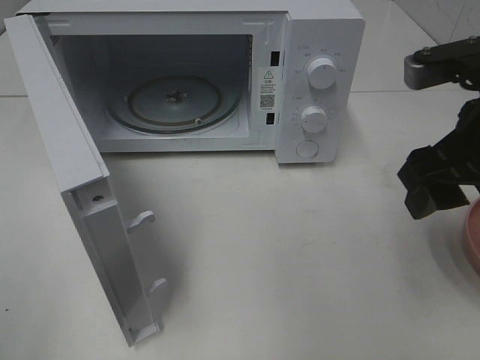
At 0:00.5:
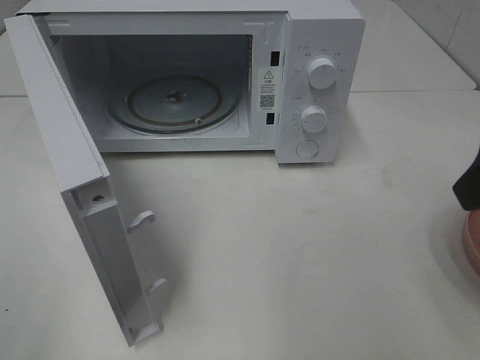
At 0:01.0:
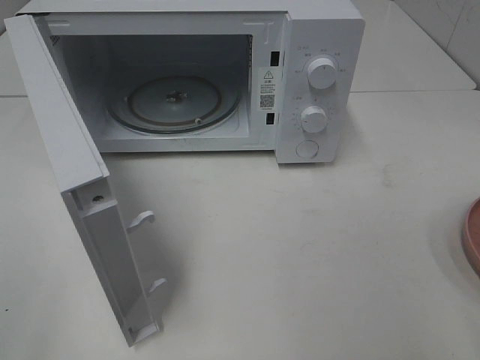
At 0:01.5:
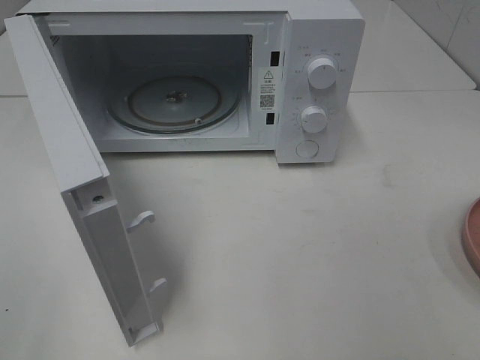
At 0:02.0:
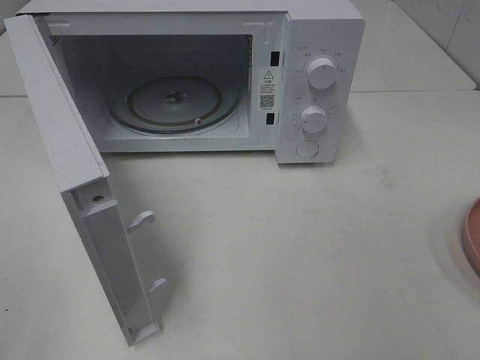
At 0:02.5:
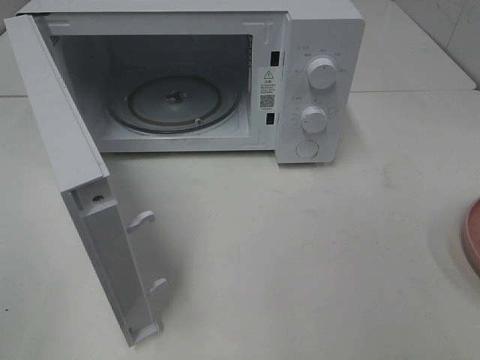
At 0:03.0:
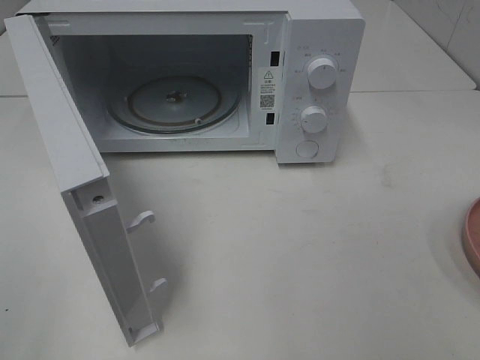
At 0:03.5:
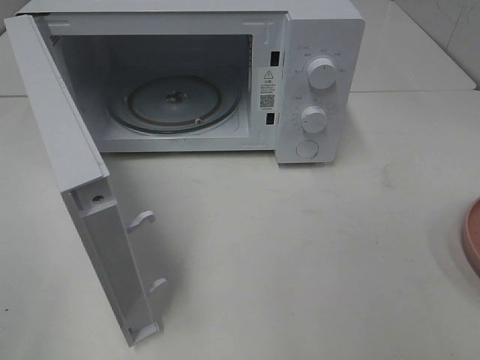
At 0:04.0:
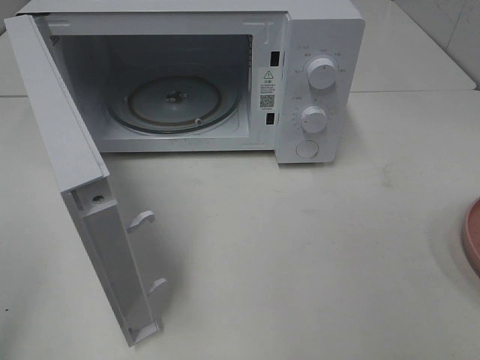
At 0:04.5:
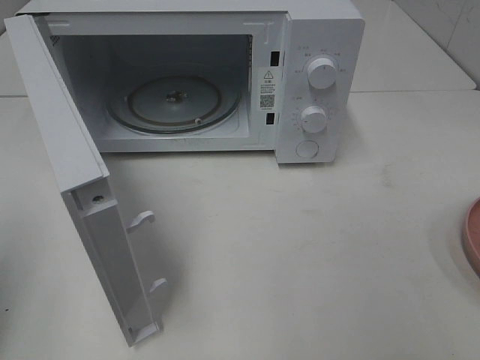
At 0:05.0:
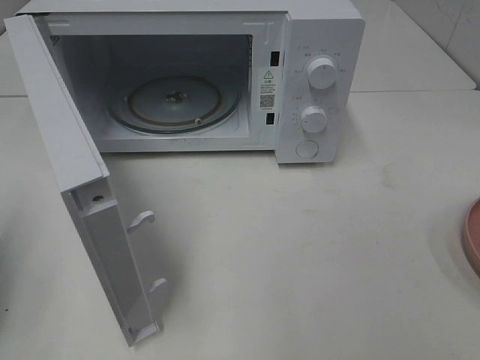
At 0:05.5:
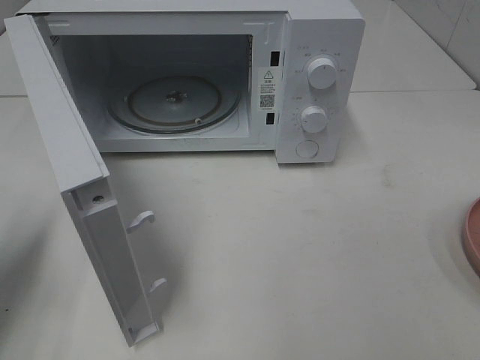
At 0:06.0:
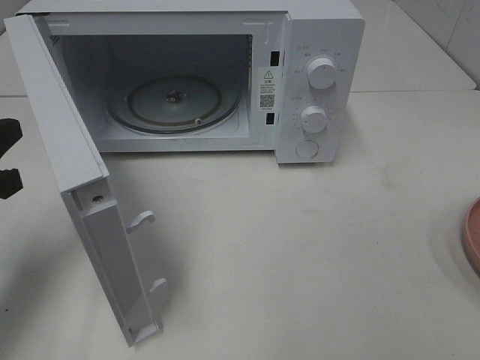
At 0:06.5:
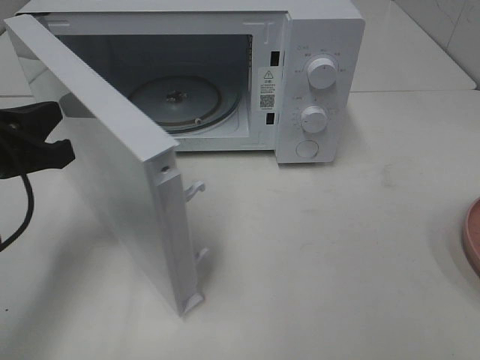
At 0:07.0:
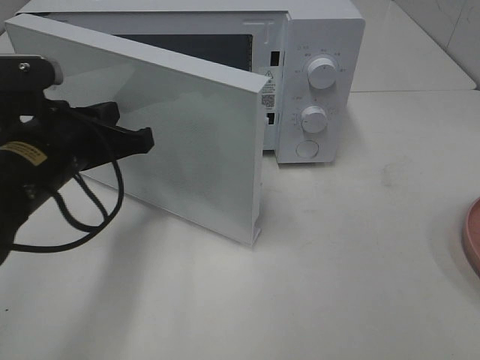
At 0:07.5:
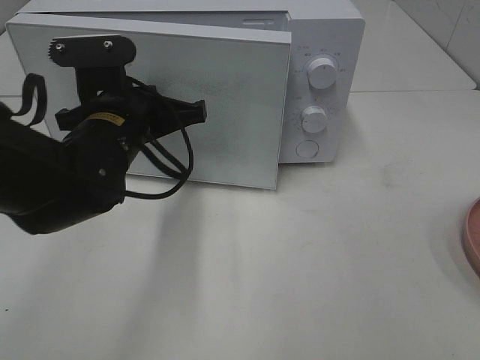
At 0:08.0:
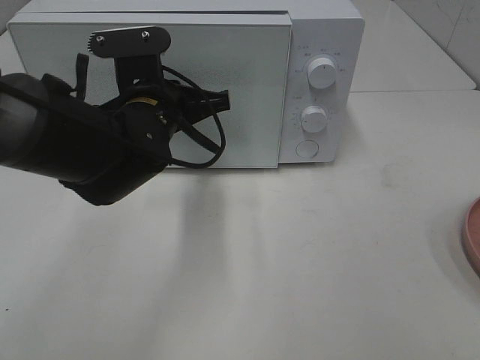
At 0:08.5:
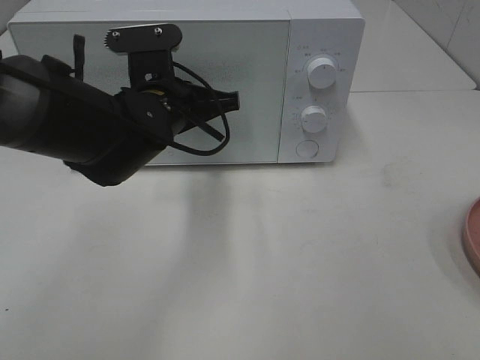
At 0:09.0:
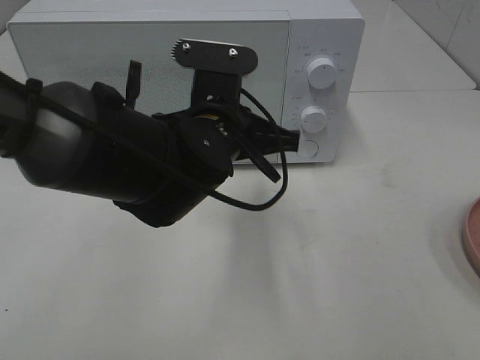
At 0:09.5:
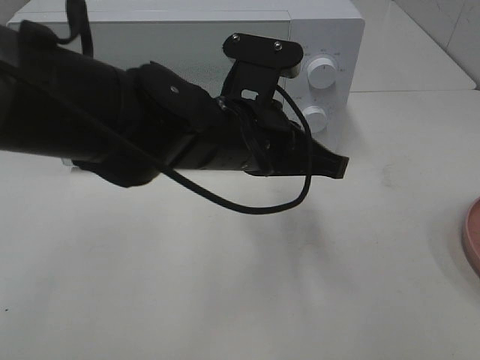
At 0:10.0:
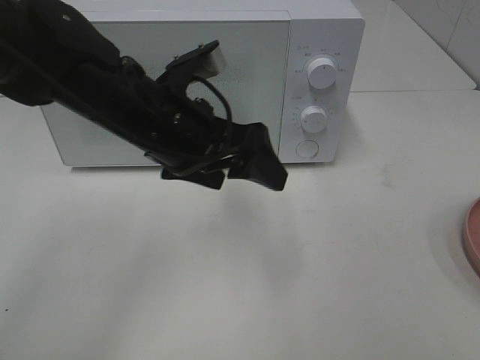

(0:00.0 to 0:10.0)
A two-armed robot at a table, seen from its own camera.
Task of the whole recording: Heat the burger.
Step, 0:00.0 - 0:09.0: Left hand: close the microwave door.
0:00.0 - 0:02.0: The right gripper travels backward and to the right by some 25 cm.
0:04.0 - 0:06.0: The left gripper heads forward and downward, covering roughly 20 cm, and closes.
0:06.0 - 0:08.0: The left gripper is displaced to the right and forward by approximately 25 cm.
0:08.0 - 0:10.0: The left gripper travels to the right and back again, some 10 cm each way, and opens.

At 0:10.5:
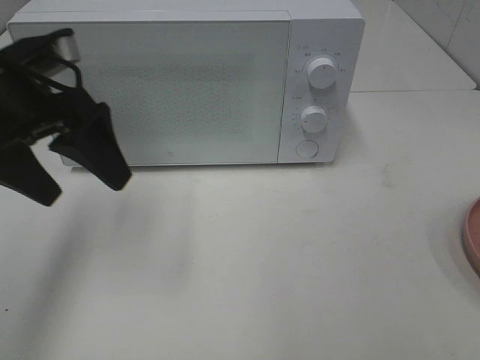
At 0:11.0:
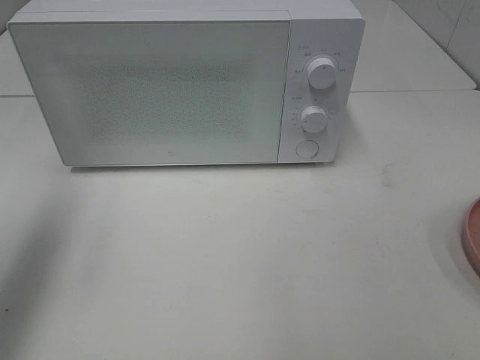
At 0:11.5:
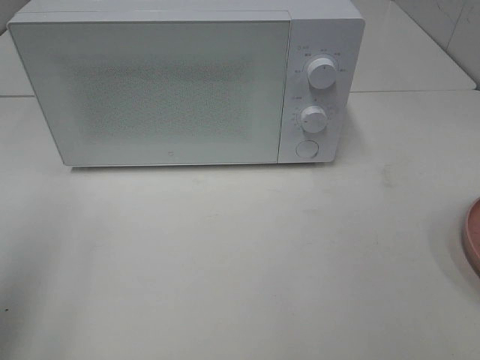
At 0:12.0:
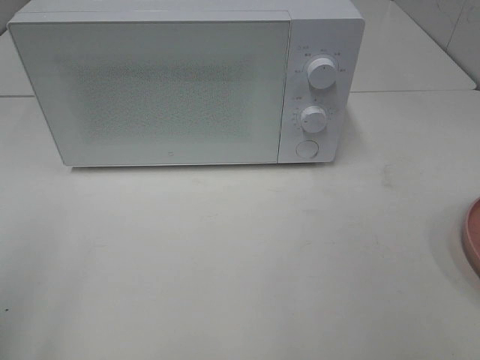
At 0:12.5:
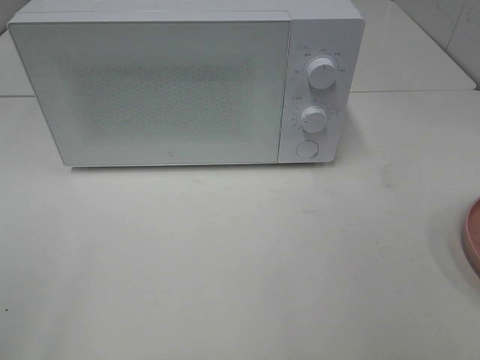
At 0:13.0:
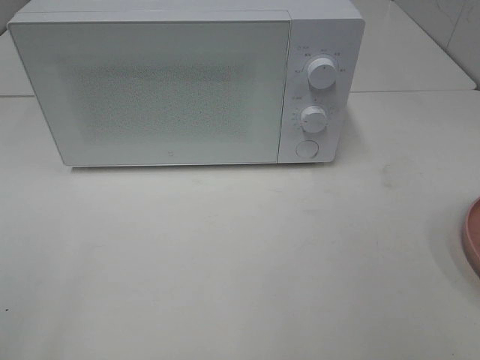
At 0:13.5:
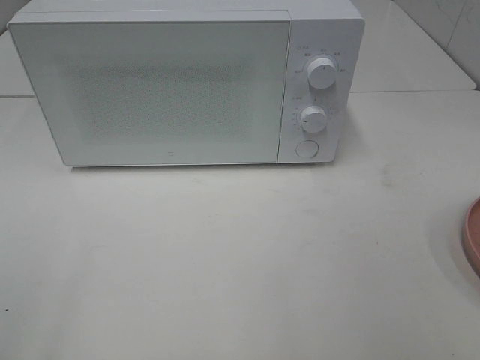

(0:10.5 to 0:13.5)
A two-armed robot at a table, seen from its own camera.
Task of the whole recording: Heat the burger.
0:10.5 - 0:12.0: The left gripper heads backward and to the left, covering approximately 25 cm.

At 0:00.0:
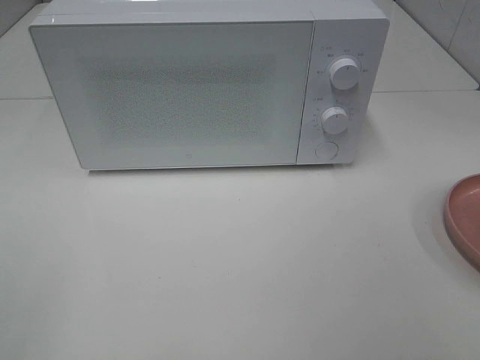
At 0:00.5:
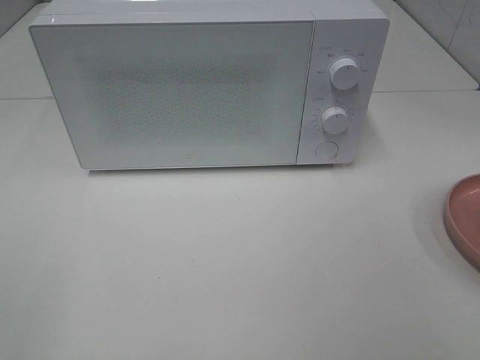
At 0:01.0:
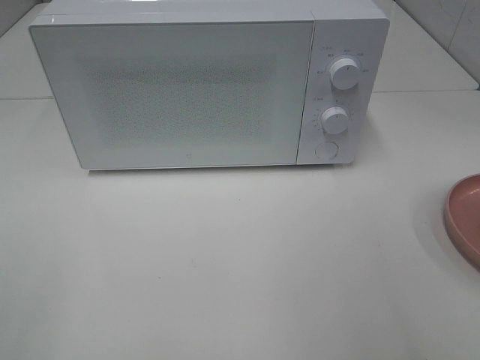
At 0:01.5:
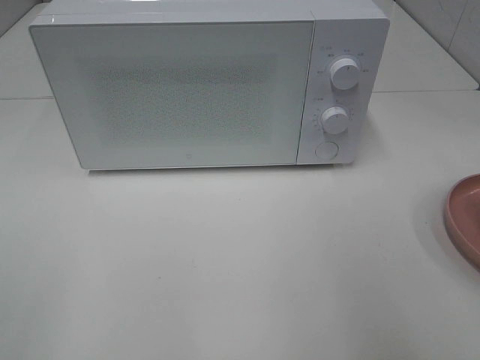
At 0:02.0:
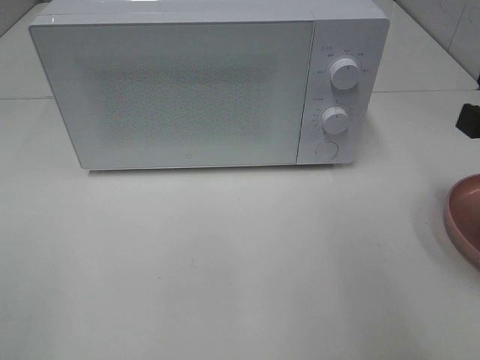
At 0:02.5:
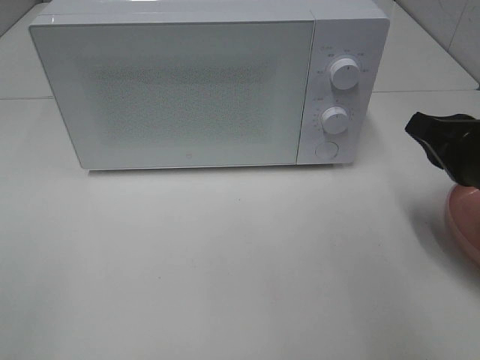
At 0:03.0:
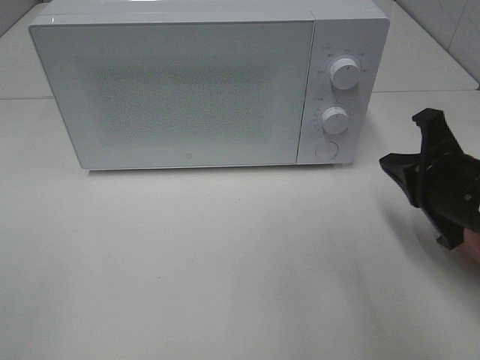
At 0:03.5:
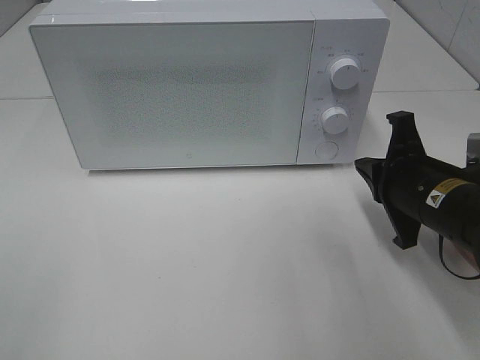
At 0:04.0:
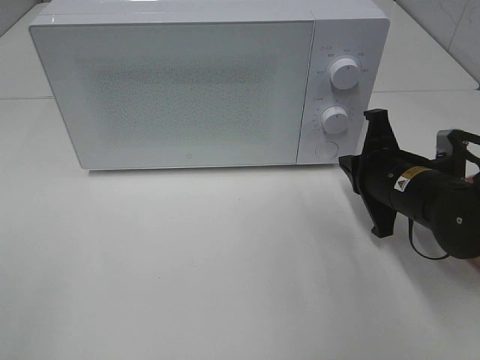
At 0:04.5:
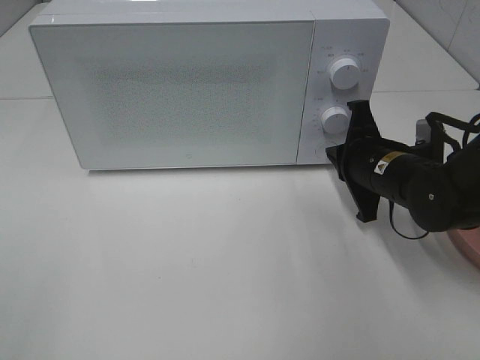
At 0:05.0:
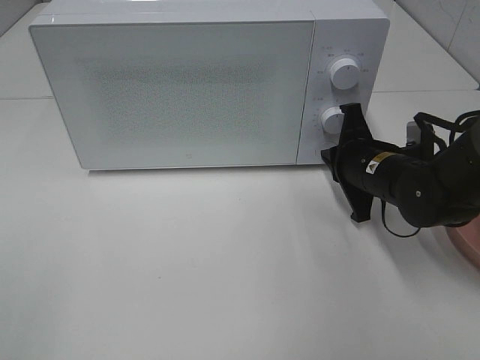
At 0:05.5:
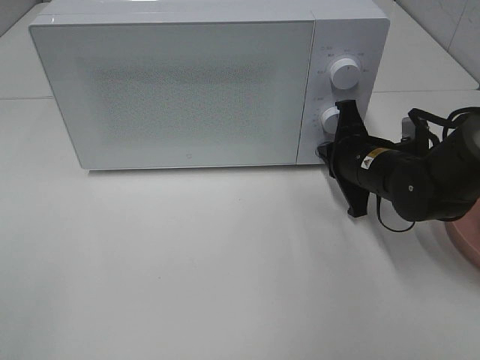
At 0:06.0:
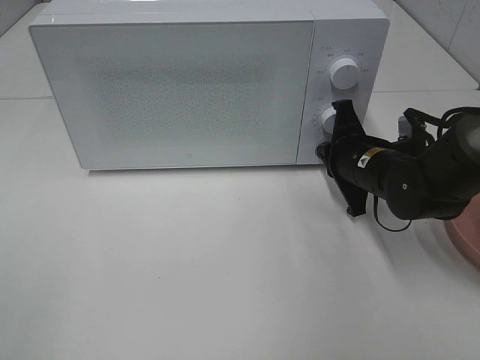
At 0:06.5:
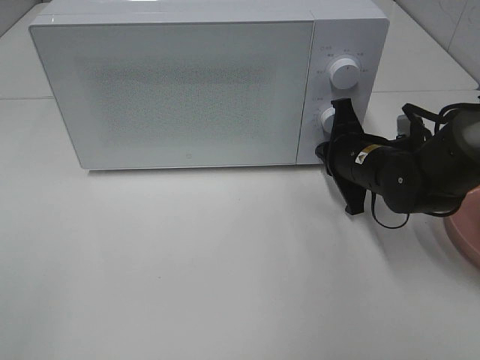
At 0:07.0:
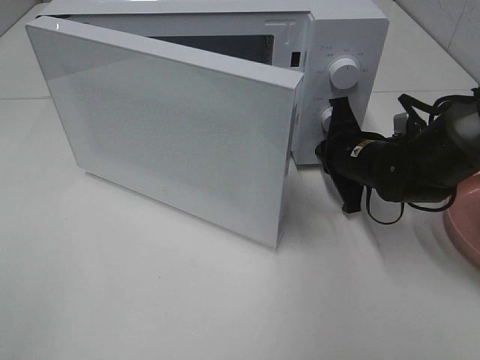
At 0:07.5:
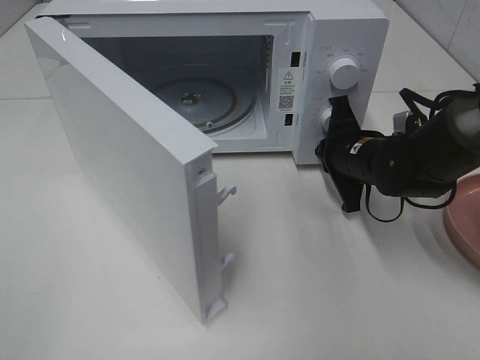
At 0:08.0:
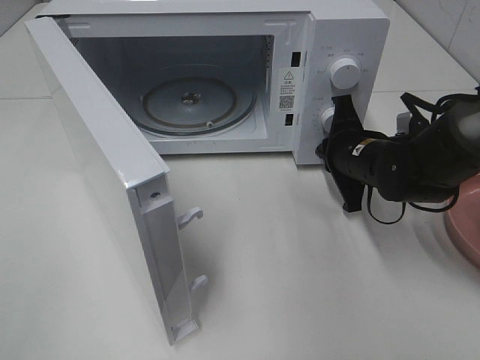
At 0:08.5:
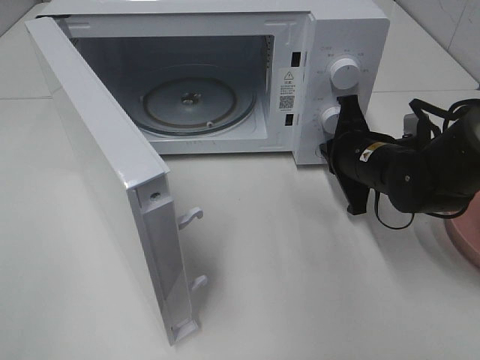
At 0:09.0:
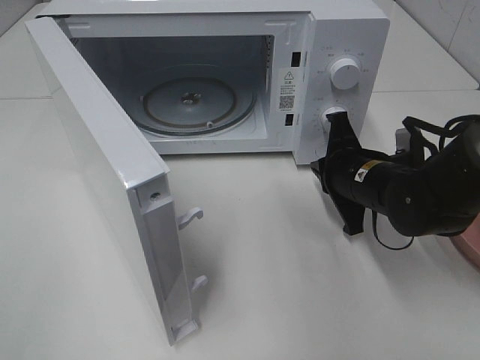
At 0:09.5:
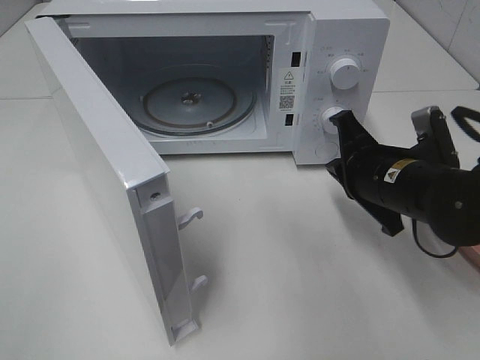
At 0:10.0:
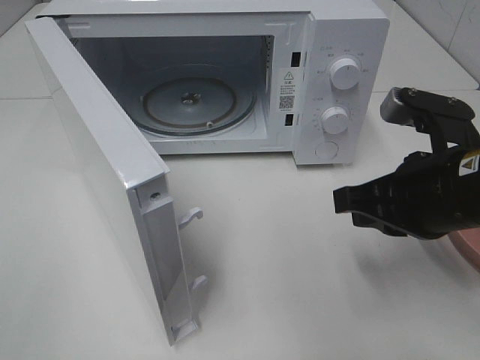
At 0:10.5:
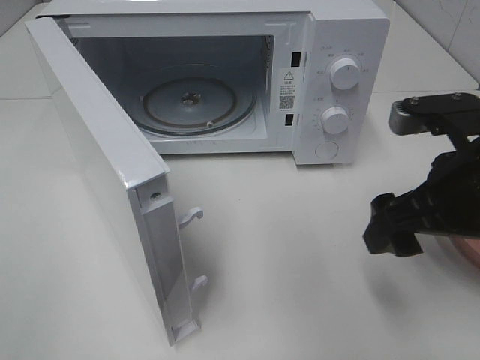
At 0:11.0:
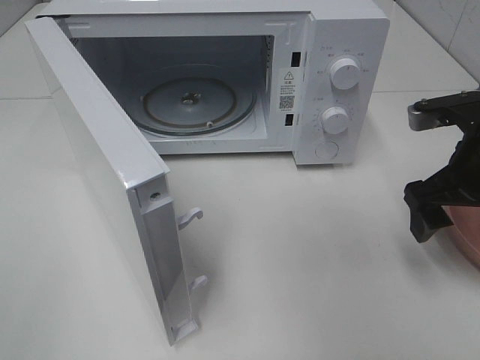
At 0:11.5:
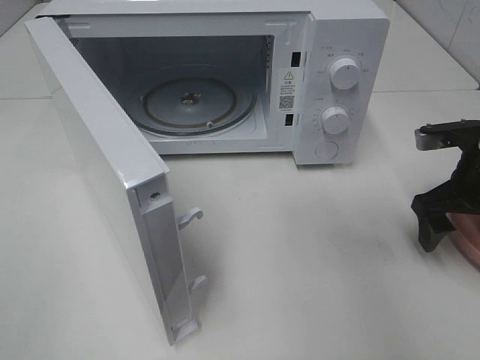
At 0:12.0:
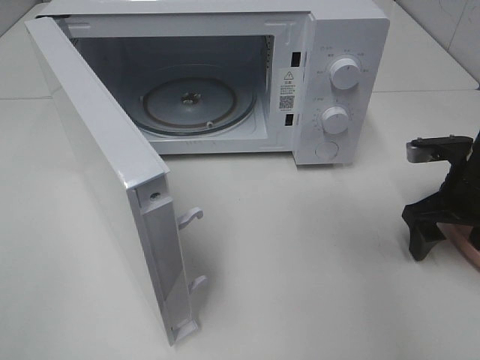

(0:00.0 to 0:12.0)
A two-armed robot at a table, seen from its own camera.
Task of the whole recording: Heat the burger.
Step, 0:00.0 - 0:08.5: Right hand: press the switch.
0:00.0 - 0:02.0: The right gripper shifts about 20 cm forward, and closes its fingers.
0:02.0 - 0:04.0: The right gripper goes approximately 20 cm downward, forward and to the left.
0:04.0 - 0:06.0: The right gripper is displaced forward by some 5 cm.
0:08.0 - 0:10.0: The right gripper travels backward and upward by some 20 cm.
0:10.0 - 0:12.0: The right gripper moves forward, to the right and downward, approximately 15 cm, and opens up.
